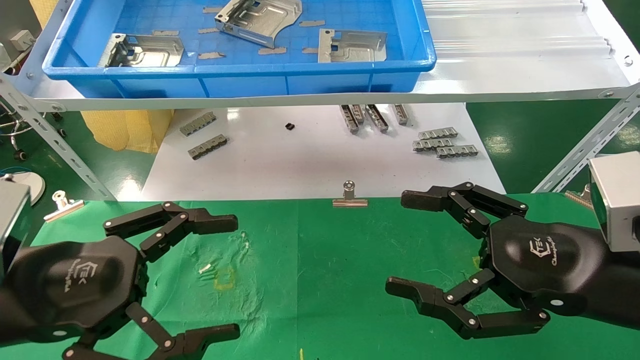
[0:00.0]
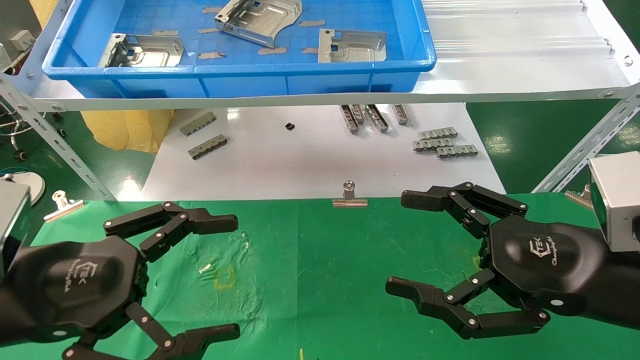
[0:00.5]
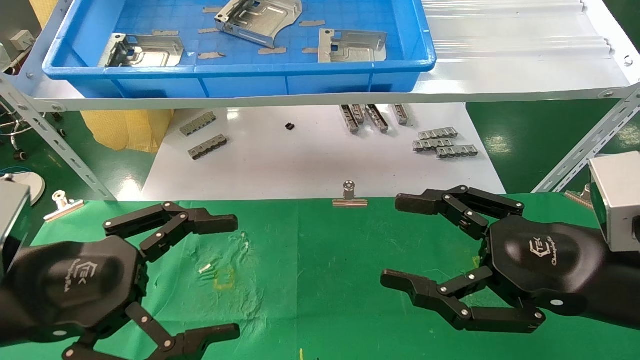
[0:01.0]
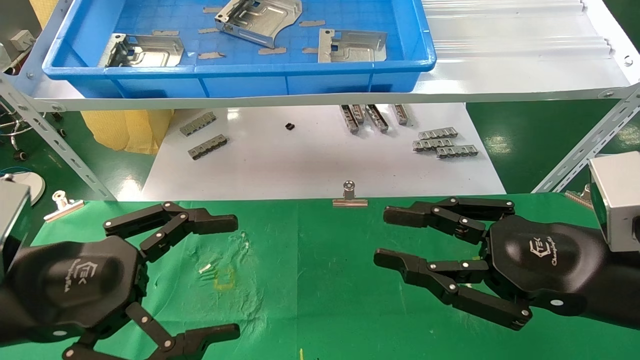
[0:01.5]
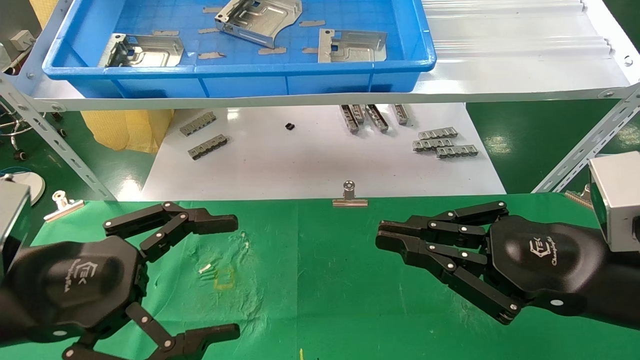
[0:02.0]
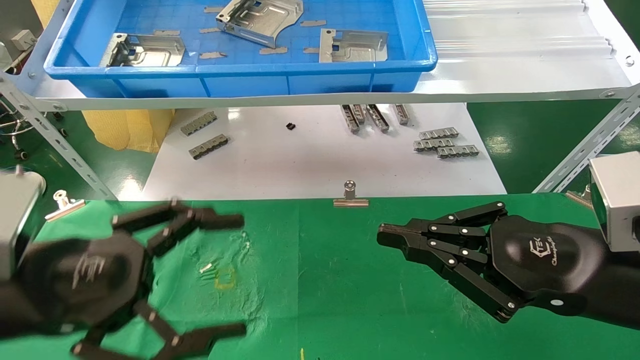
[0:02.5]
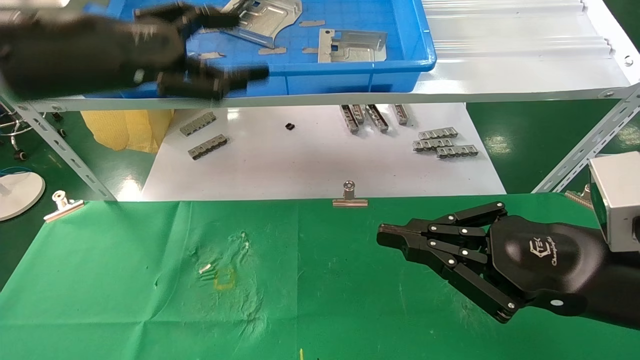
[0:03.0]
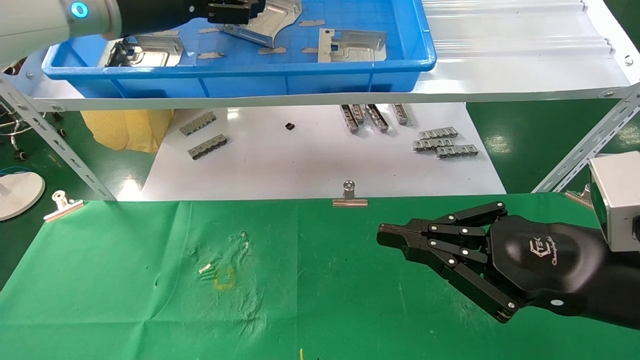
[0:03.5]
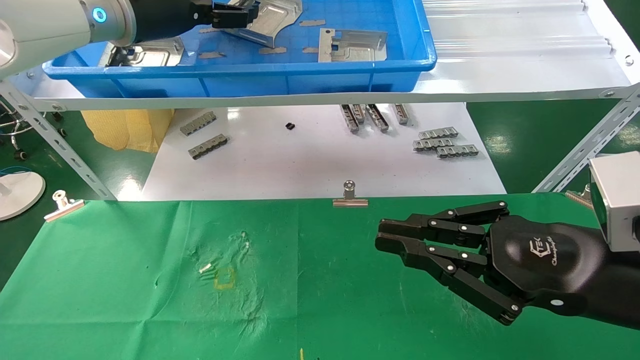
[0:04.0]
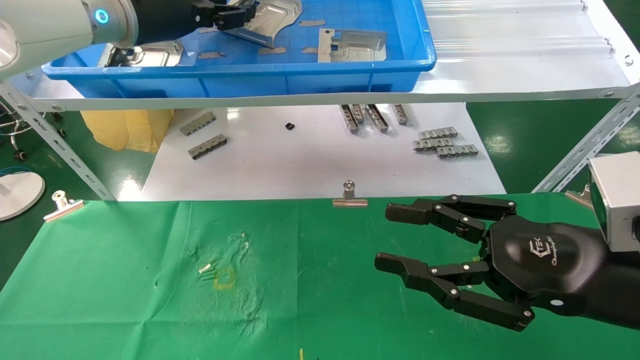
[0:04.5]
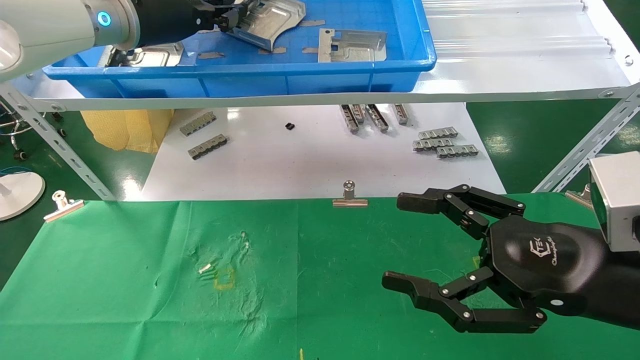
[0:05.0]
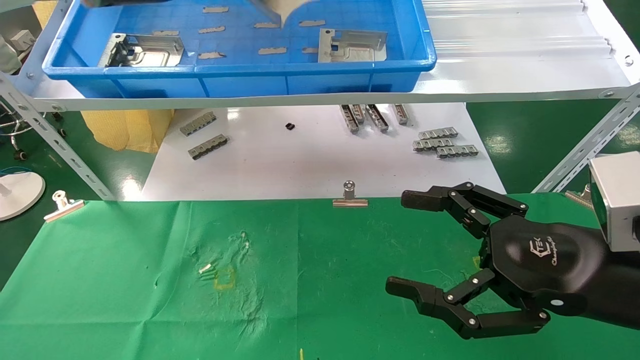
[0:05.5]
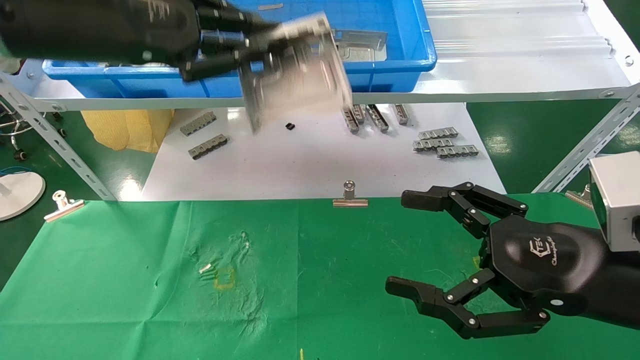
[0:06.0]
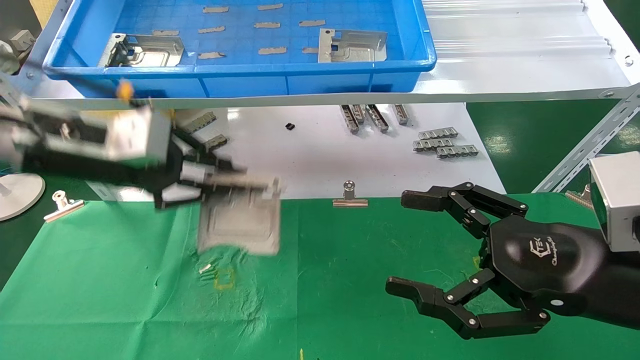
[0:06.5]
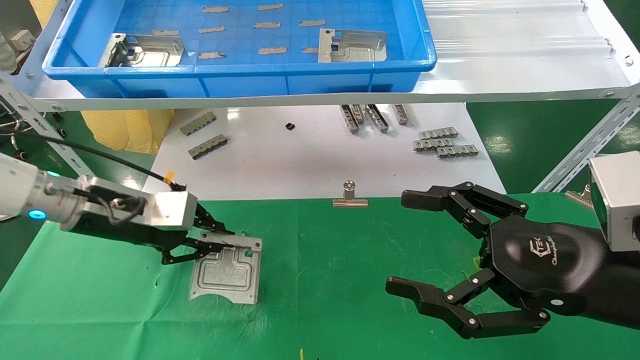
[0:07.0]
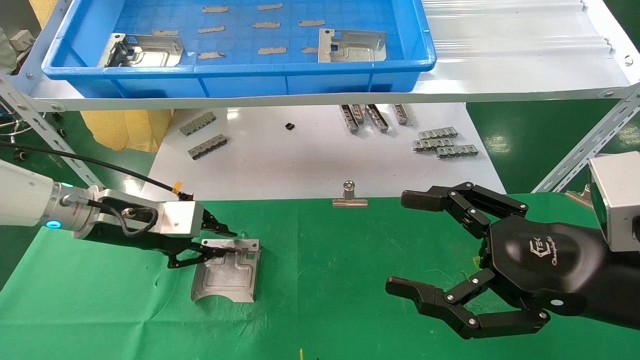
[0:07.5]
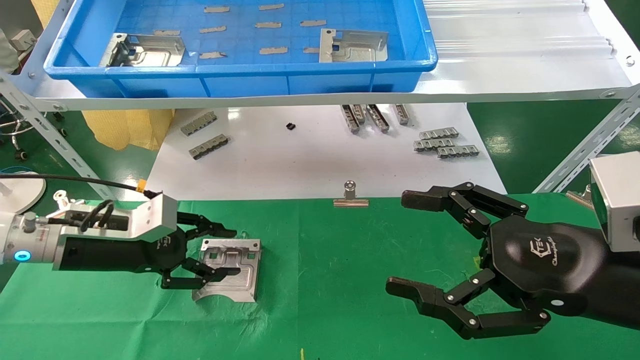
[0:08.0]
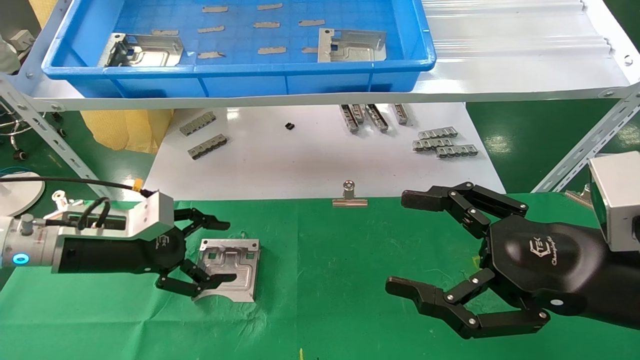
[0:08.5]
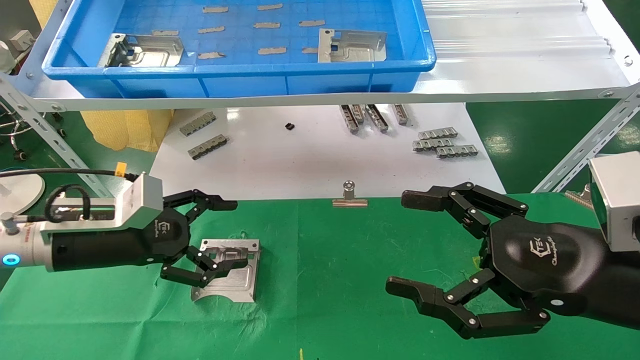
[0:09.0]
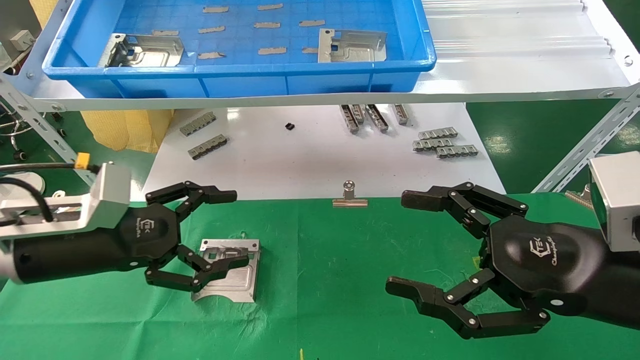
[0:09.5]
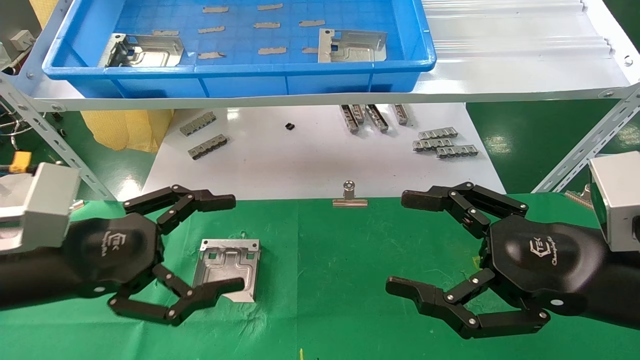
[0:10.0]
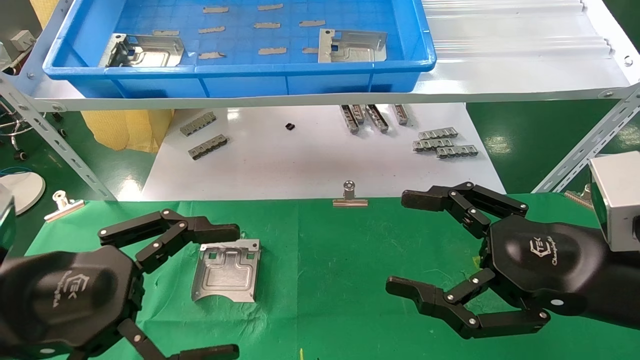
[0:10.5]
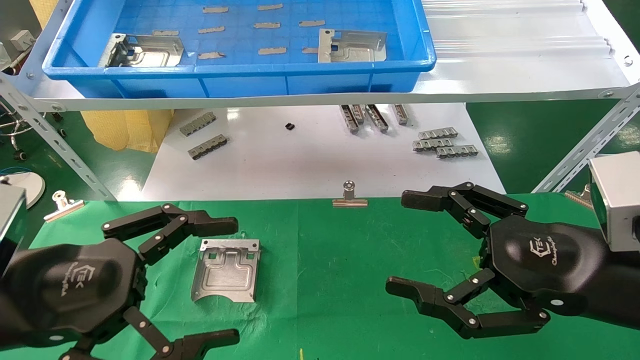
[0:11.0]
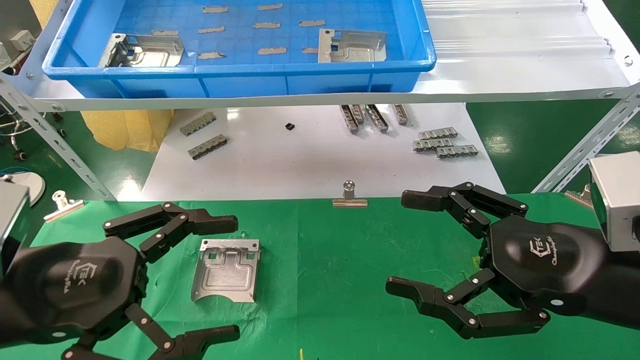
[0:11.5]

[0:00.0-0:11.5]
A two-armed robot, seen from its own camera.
Task of the whole recording: use the mechanical arm to pick up the parts and place them on the table.
Step, 0:01.5 to 0:05.0: Pick up the hard drive bracket from the feeding area.
Step, 0:05.5 to 0:08.0: Place the hard drive bracket into the box.
0:00.0 to 0:02.0: The right gripper closes up.
0:02.0 to 0:04.0: The left gripper travels forward and upward by some 35 cm.
0:04.0 to 0:06.0: The right gripper opens its fingers; the left gripper heads backward, covering about 10 cm, and closes.
0:06.0 to 0:07.5: The left gripper shifts roughly 20 cm downward.
0:07.5 to 0:09.5: The left gripper moves backward, roughly 10 cm, and opens up.
0:09.5 to 0:11.5: The left gripper heads backward, covering some 10 cm.

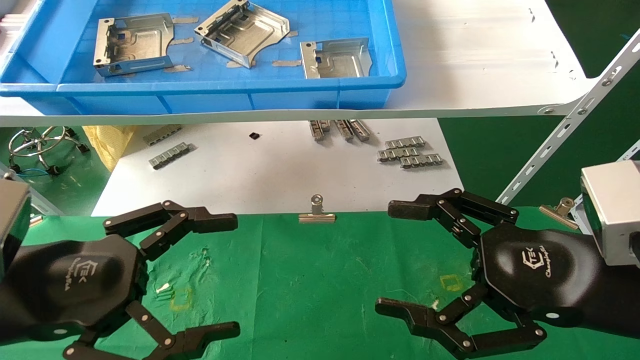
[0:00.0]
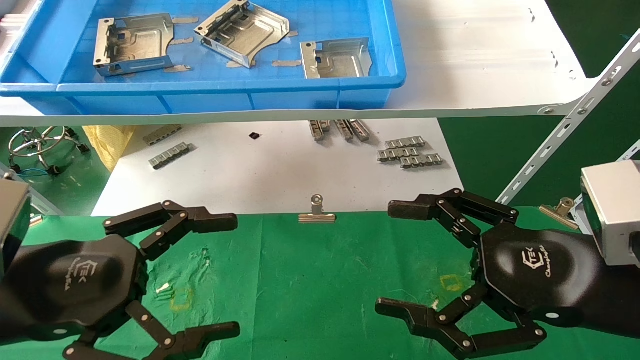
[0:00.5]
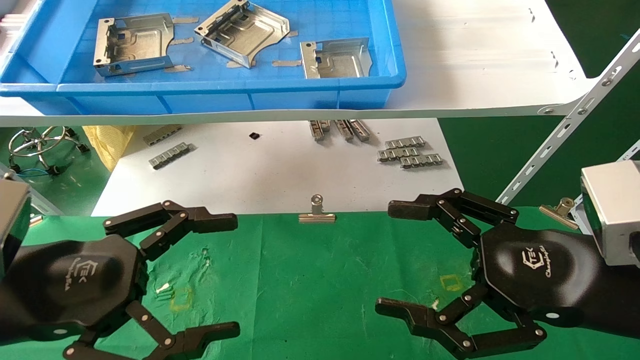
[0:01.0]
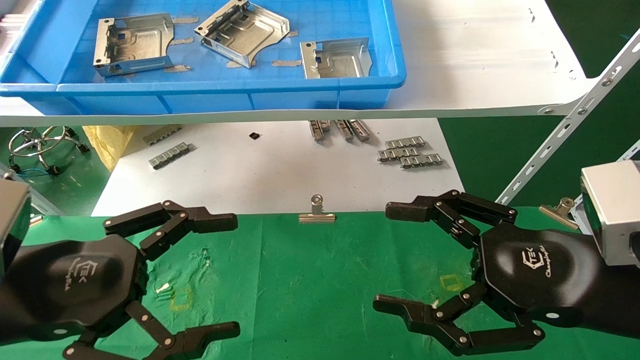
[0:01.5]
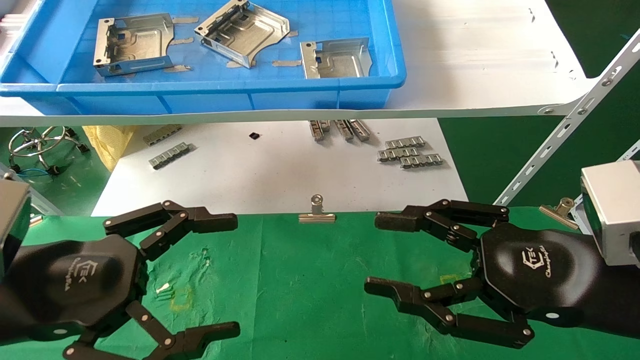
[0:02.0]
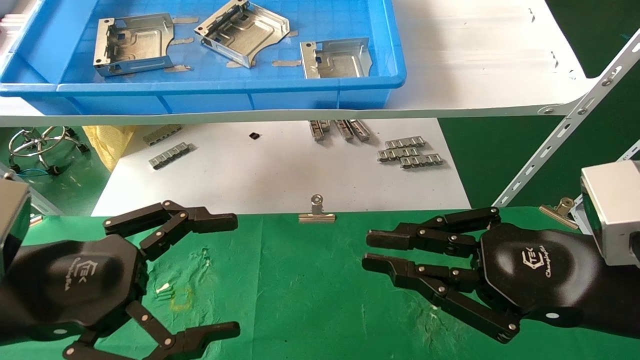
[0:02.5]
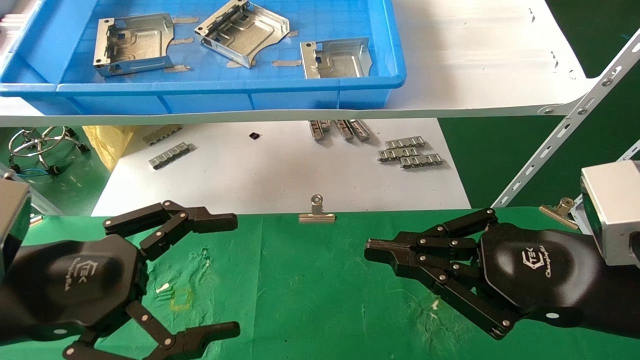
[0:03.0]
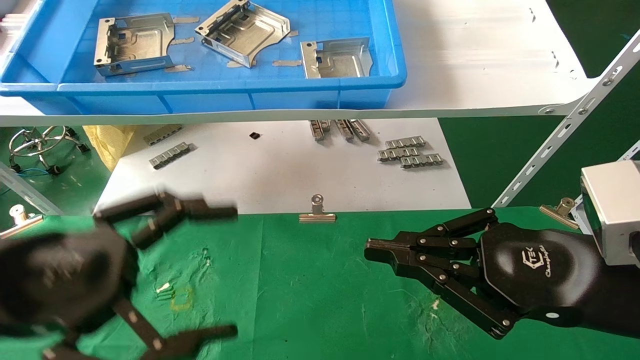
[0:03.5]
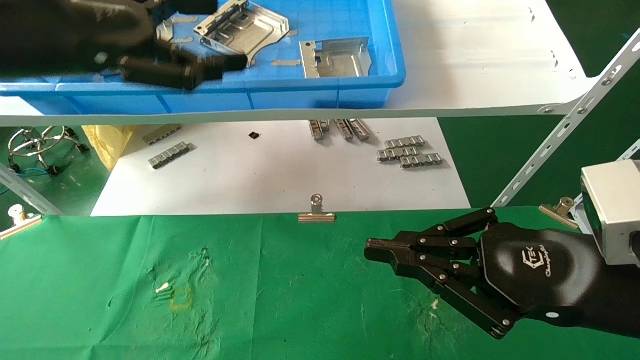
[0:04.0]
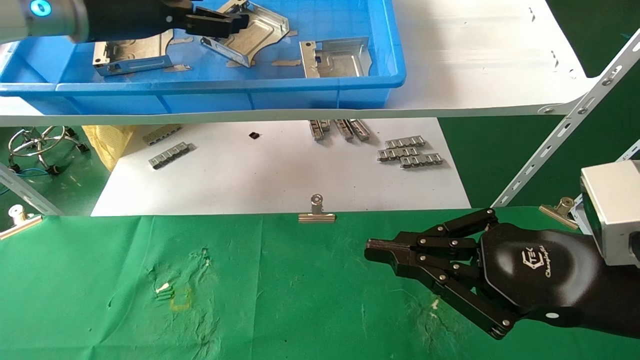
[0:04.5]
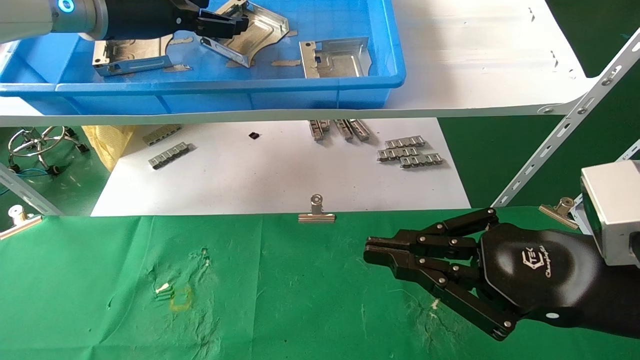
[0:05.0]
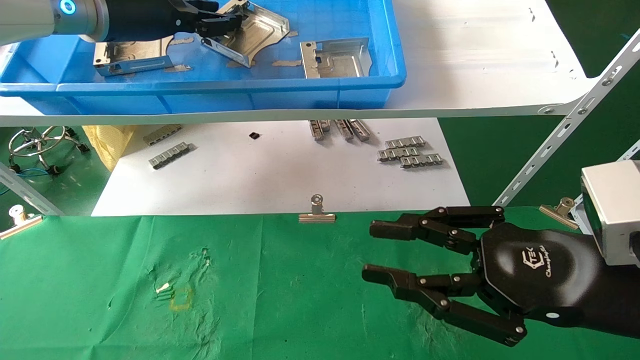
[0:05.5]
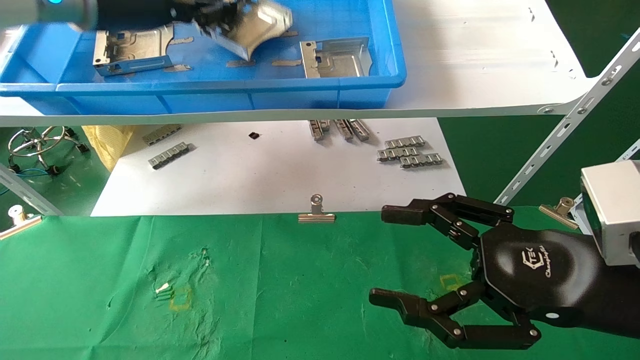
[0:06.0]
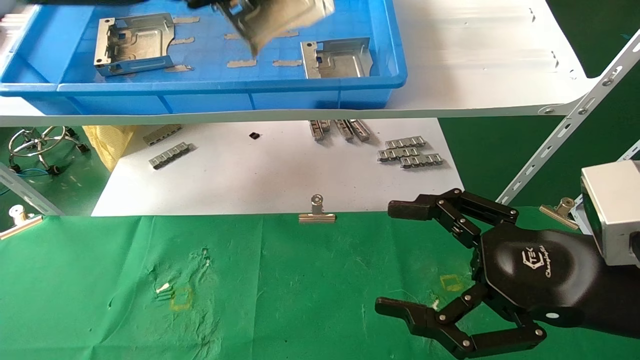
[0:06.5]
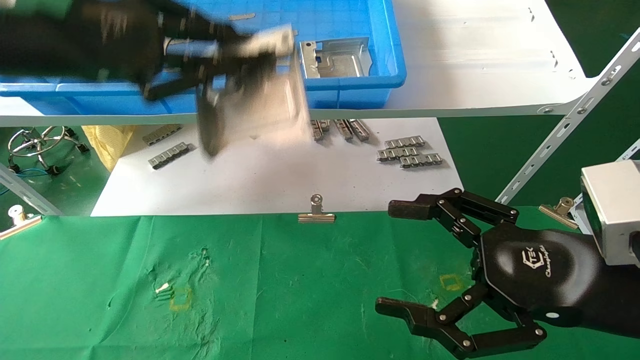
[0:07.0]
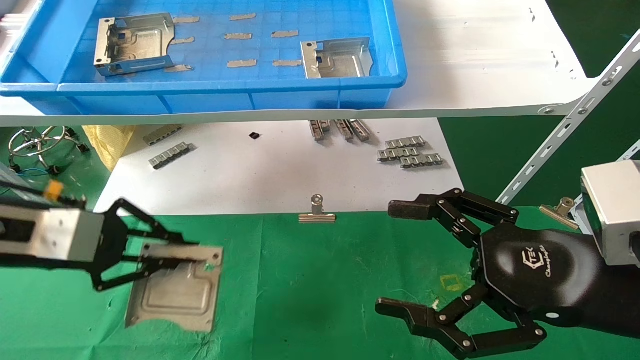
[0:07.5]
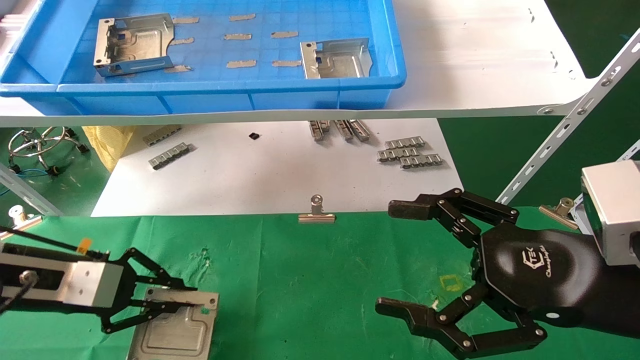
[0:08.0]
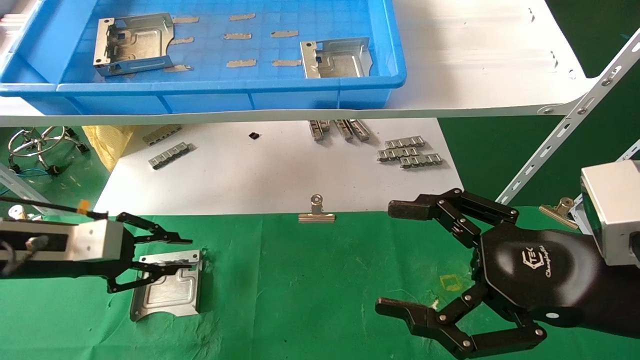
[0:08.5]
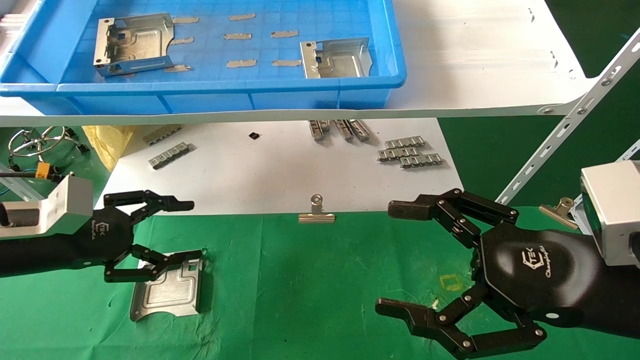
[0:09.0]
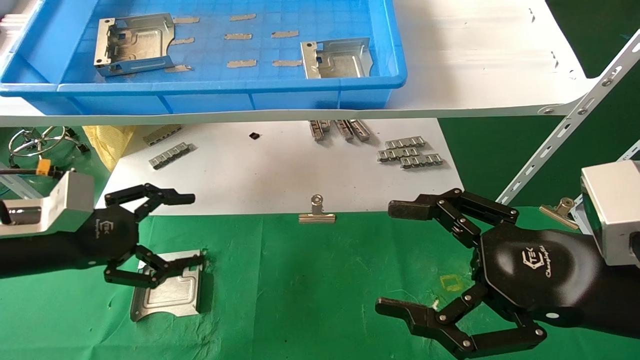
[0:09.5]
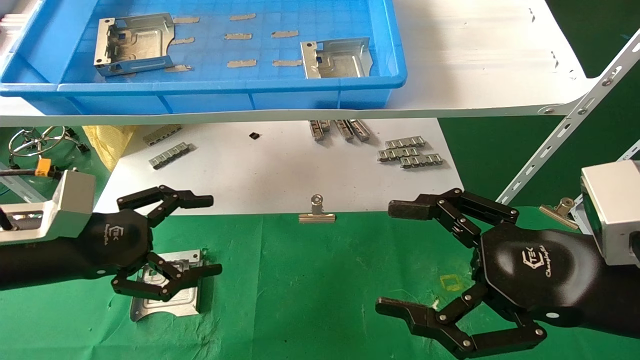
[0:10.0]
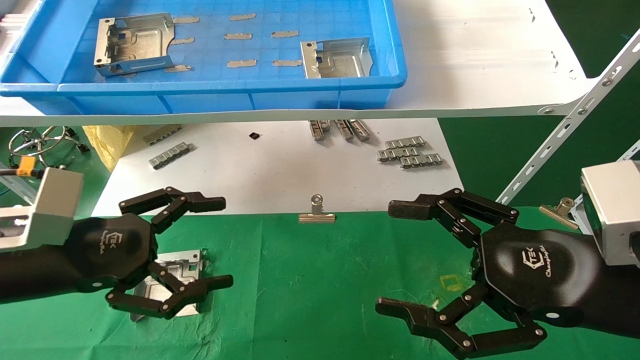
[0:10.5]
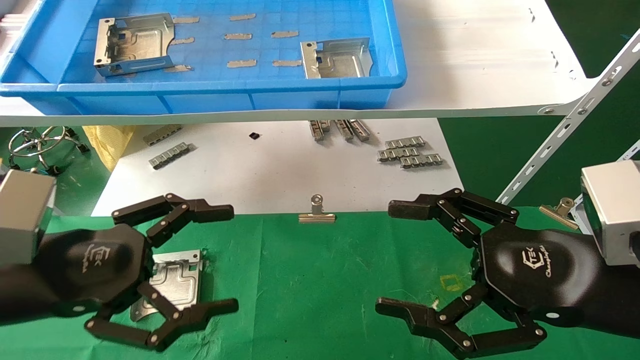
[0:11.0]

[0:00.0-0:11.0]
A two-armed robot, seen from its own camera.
Task of the whole recording: use the mechanical arm to pick up the parts and place them on the table.
Step, 0:04.0 to 0:06.0: Pick up the hard drive bracket from the feeding area.
Step, 0:06.5 to 0:08.0: Place the hard drive bracket into the box.
0:00.0 to 0:02.0: Neither gripper changes place.
0:02.0 to 0:03.5: The right gripper closes up, while the left gripper goes approximately 5 cm upward.
0:03.5 to 0:05.5: The left gripper goes some 30 cm forward and upward, and closes up.
0:05.5 to 0:07.5: The left gripper travels downward, backward and to the left by about 25 cm, and closes, while the right gripper opens up.
0:07.5 to 0:09.0: The left gripper ends up approximately 5 cm from where it was, and opens its fingers.
0:09.0 to 0:11.0: The left gripper travels backward and to the right by some 10 cm, and opens.
